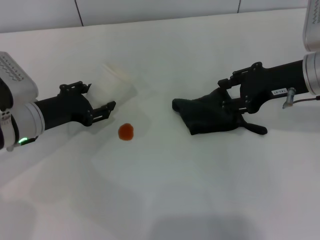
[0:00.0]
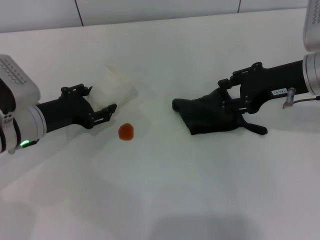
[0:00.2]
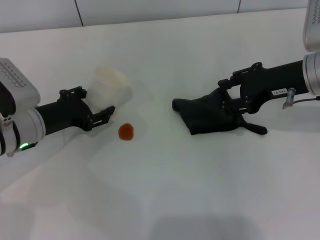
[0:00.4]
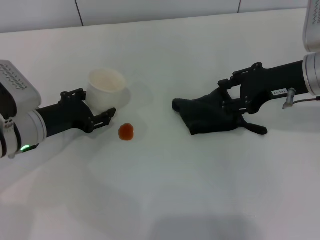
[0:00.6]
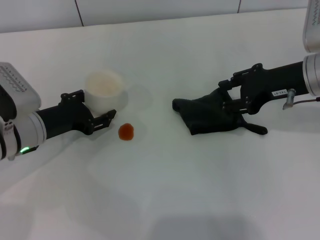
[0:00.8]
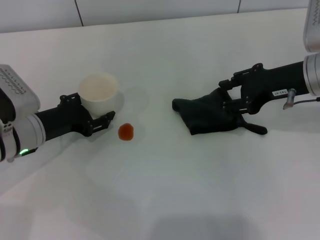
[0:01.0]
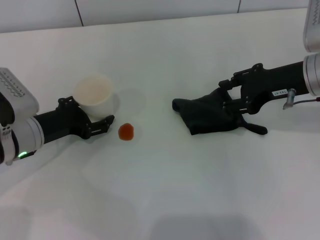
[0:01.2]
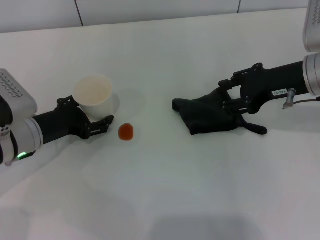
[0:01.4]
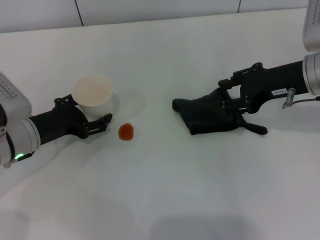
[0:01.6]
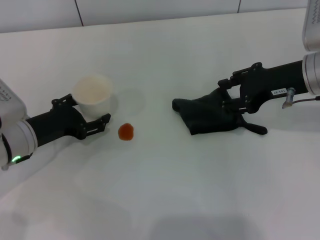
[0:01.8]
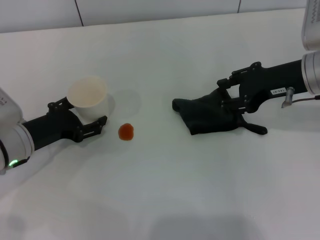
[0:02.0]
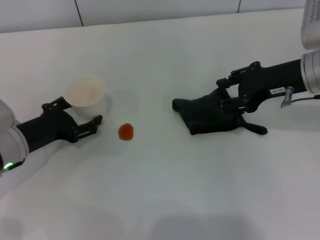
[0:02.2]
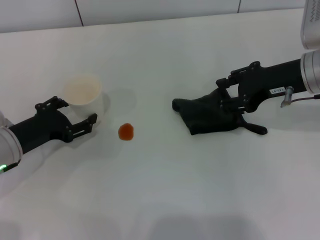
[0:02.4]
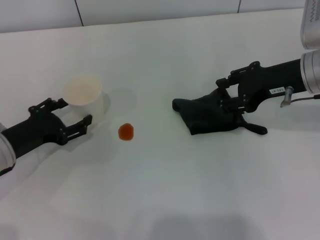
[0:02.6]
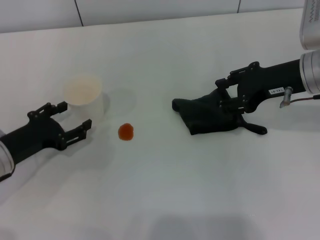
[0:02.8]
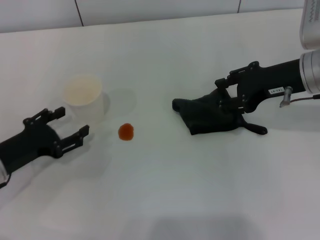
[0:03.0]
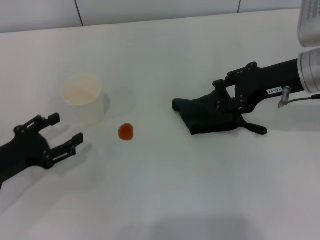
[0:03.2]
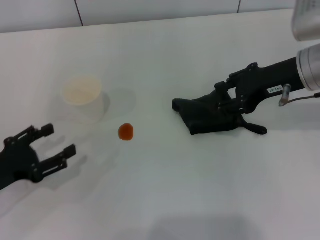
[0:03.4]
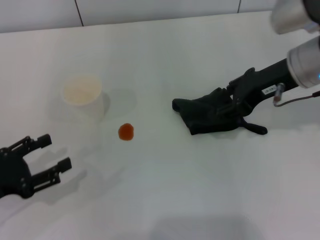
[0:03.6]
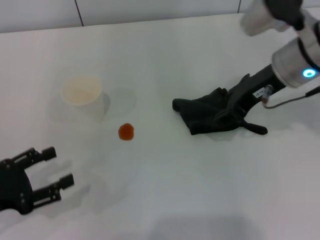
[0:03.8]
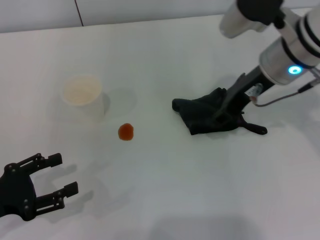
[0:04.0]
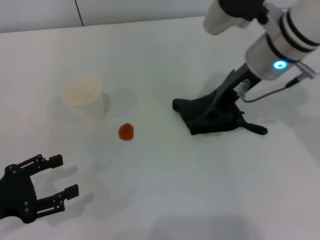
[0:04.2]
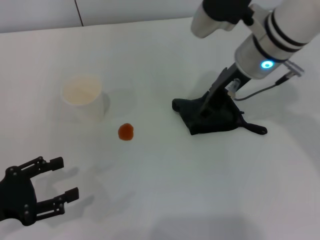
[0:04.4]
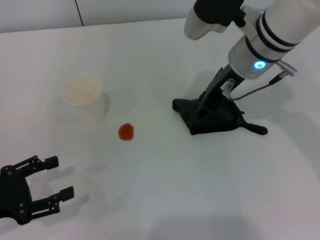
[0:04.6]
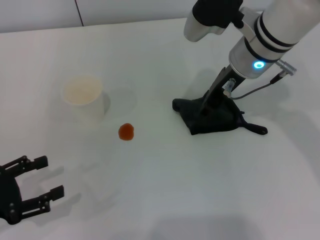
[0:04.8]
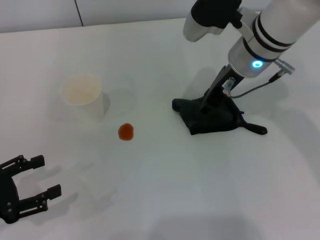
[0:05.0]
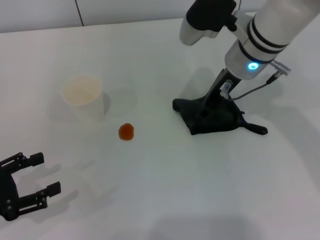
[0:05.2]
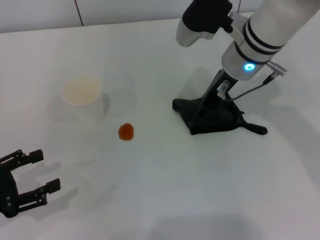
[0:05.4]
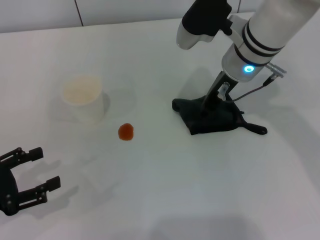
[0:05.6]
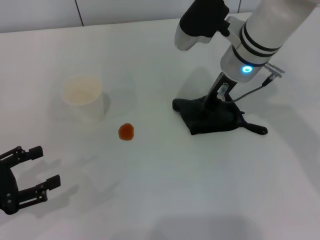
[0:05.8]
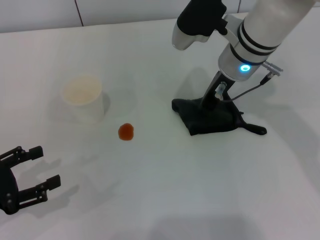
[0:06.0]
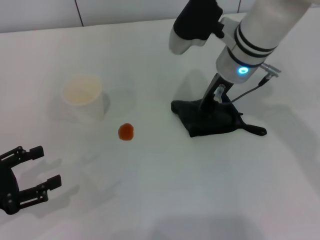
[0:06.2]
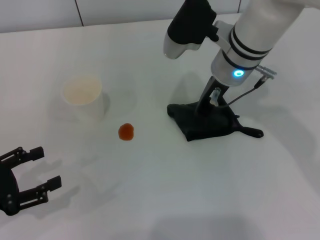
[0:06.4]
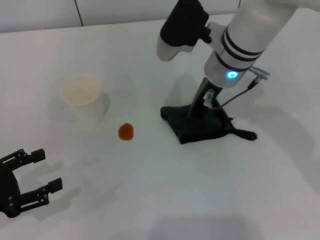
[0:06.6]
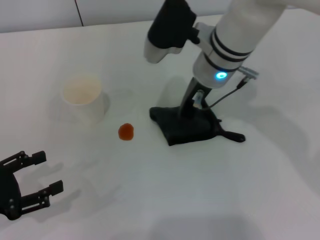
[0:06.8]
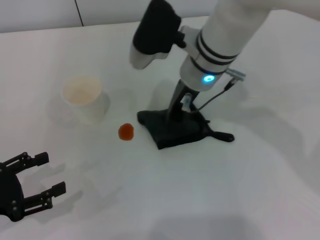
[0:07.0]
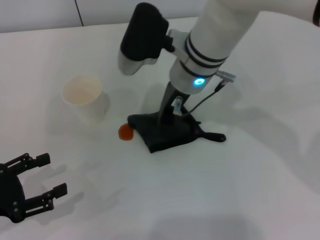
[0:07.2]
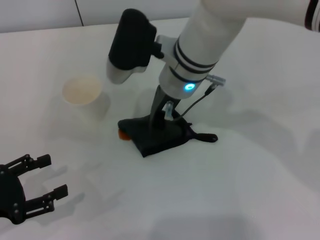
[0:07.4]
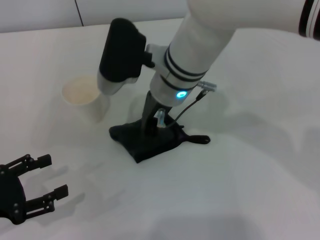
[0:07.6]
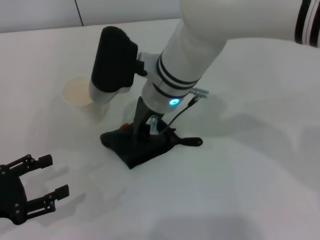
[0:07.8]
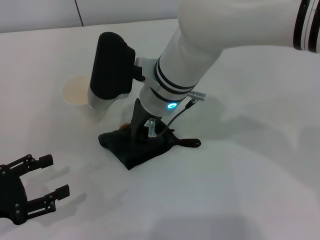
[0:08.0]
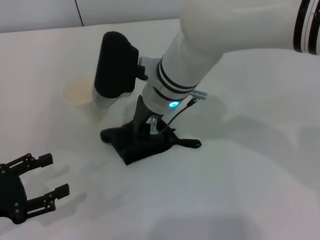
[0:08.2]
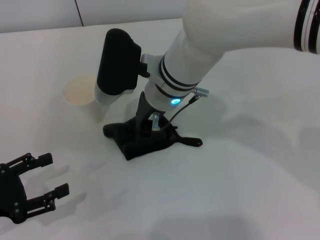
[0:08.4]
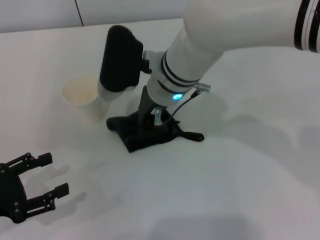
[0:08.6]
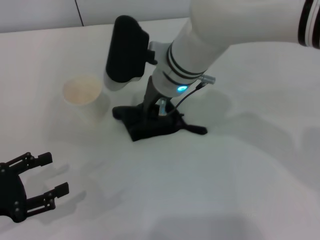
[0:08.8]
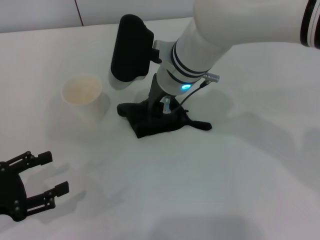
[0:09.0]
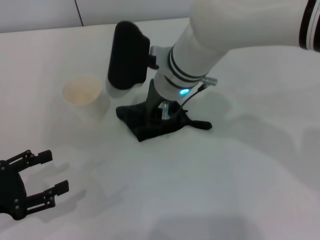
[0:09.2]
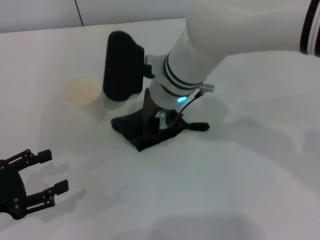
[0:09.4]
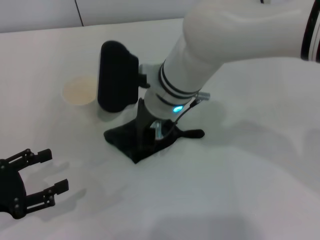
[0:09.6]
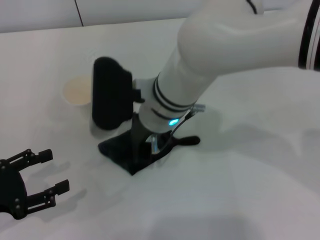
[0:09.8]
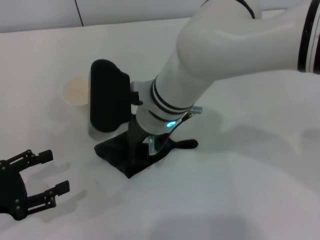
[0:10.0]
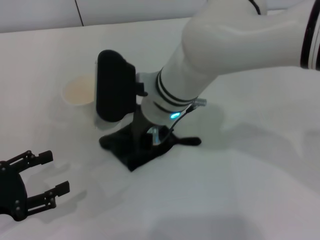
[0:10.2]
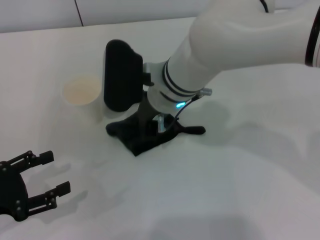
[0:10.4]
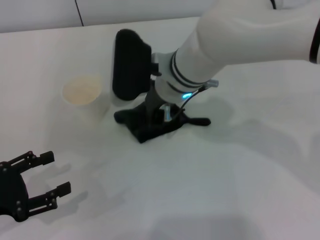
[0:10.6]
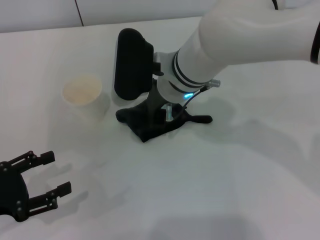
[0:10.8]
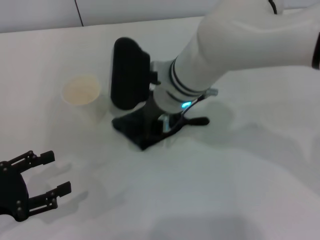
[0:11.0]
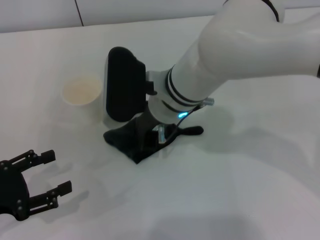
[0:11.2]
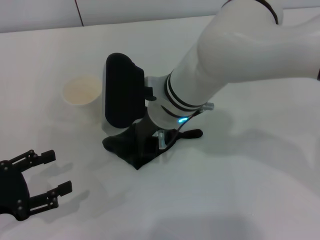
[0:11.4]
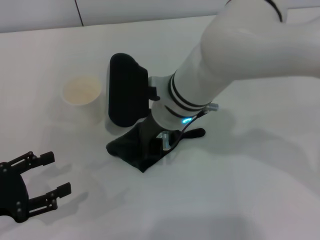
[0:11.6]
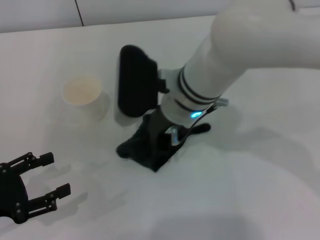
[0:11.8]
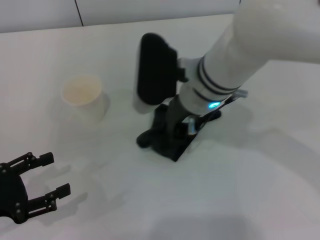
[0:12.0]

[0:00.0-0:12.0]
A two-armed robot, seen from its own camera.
Step, 0:00.0 to 0:02.8: Stand the paper cup upright with the left gripper.
Step, 0:03.2 to 0:05.6: Grasp the rag with the right gripper.
Step, 0:05.8 to 0:11.8: Wipe the stains off the table with the right gripper.
0:00.0 to 0:01.6: The left gripper opens.
0:01.6 to 0:03.0: The left gripper heads backward, covering roughly 5 cm.
0:03.0 to 0:04.4: The left gripper moves backward, roughly 5 cm. Meanwhile the right gripper goes about 10 cm to the left.
0:04.4 to 0:06.0: The grippers stay close to where they were, moving slightly.
0:06.0 to 0:07.6: The right gripper travels to the left by approximately 10 cm, and closes its fingers.
0:07.6 to 0:09.0: The grippers move only a little.
0:10.4 to 0:12.0: The grippers move only a little.

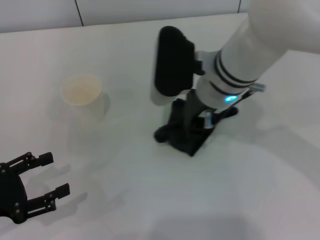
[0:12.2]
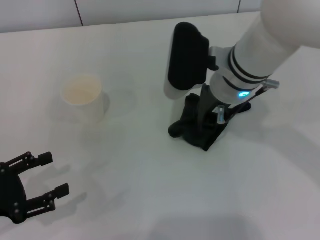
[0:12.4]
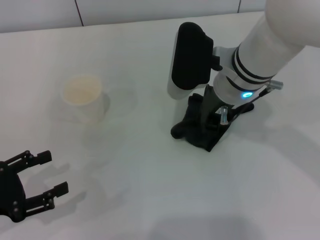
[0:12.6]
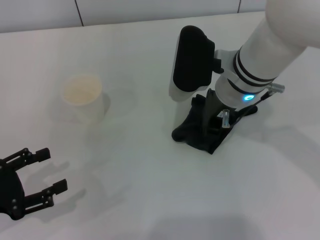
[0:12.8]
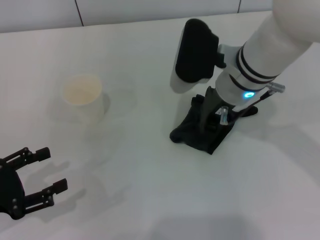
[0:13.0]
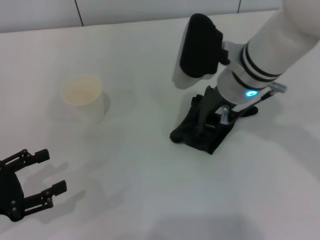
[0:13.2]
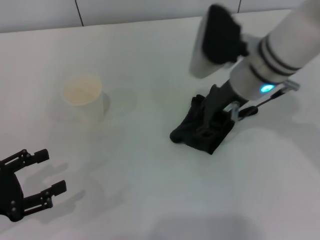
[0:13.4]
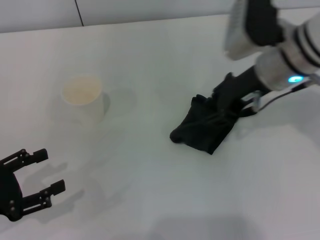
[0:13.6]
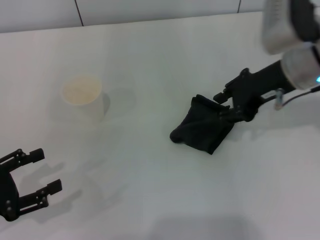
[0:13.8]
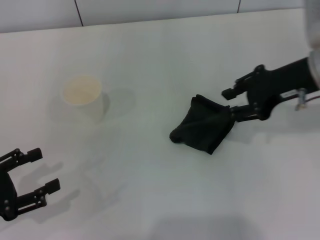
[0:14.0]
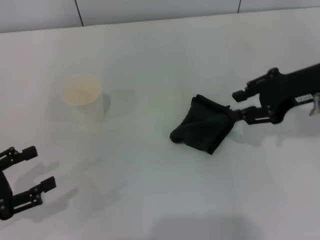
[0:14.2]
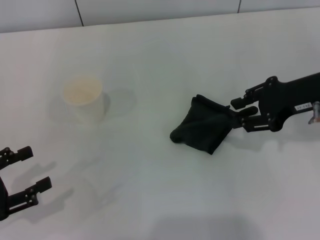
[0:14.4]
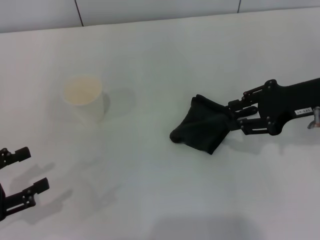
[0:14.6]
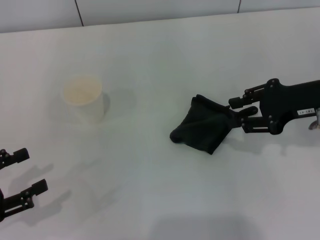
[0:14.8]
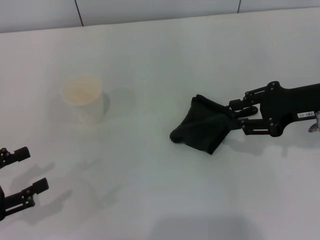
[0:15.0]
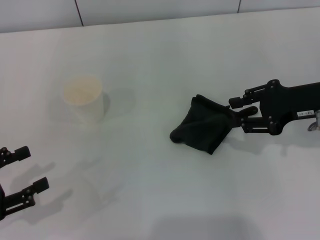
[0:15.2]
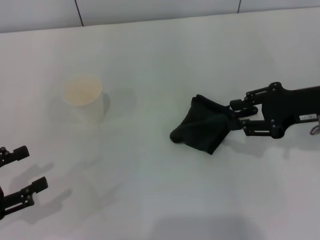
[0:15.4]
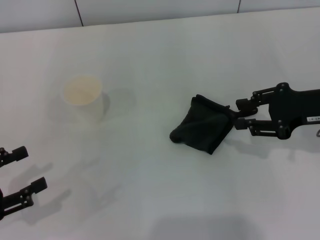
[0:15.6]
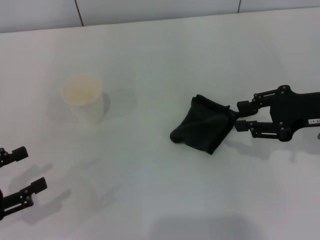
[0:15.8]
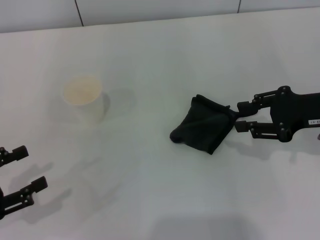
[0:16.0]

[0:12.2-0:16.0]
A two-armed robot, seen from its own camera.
Step, 0:12.2 to 0:14.2: Place the rag on the table with the right gripper.
0:12.2 to 0:13.4: The right gripper moves to the right, about 5 cm, and opens its fingers.
0:13.4 to 0:14.8: The right gripper shifts some 15 cm to the right.
0:14.8 to 0:16.0: The grippers stay close to where they were, moving slightly.
